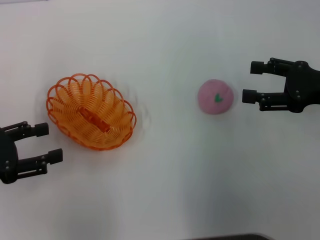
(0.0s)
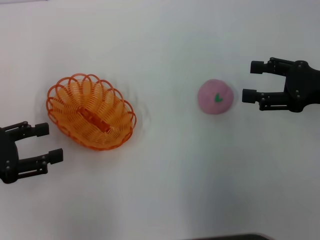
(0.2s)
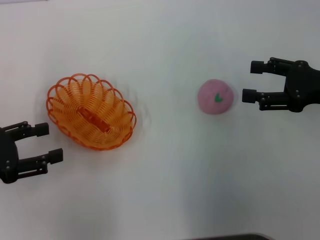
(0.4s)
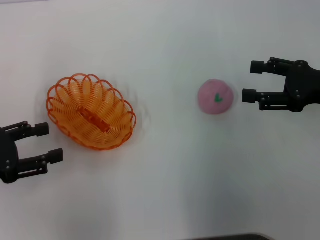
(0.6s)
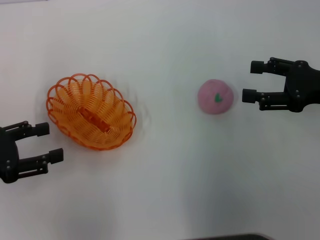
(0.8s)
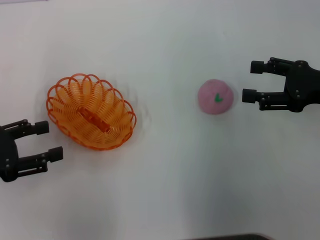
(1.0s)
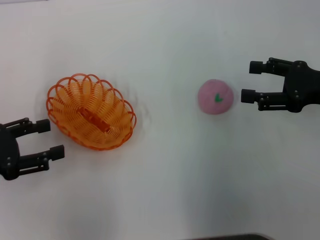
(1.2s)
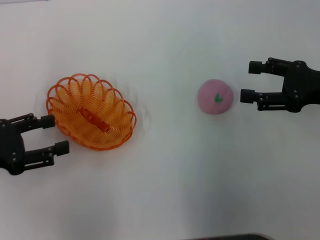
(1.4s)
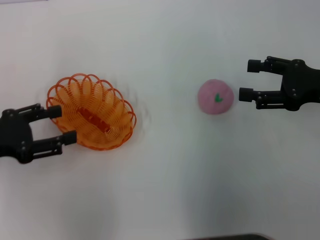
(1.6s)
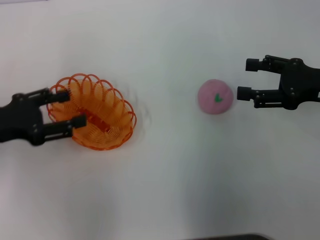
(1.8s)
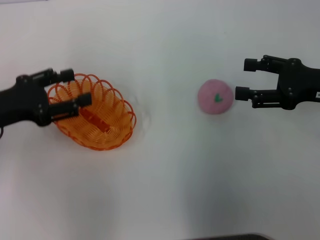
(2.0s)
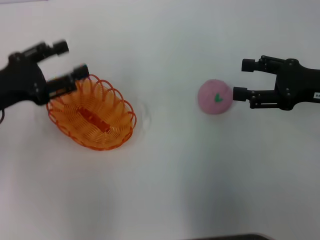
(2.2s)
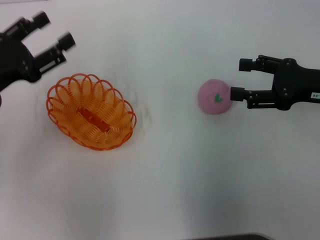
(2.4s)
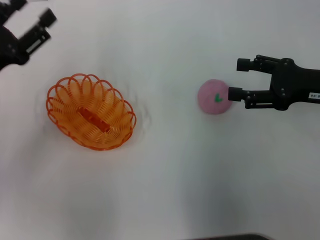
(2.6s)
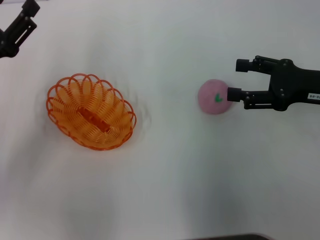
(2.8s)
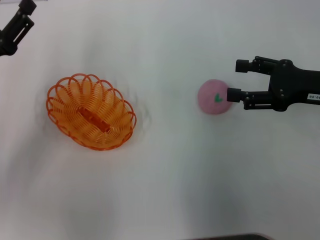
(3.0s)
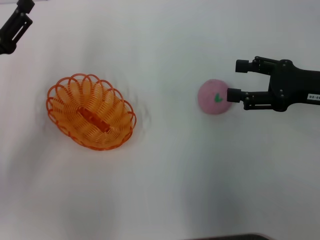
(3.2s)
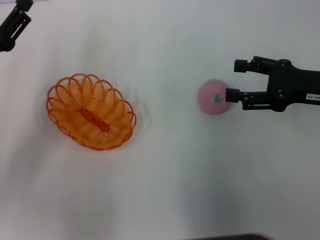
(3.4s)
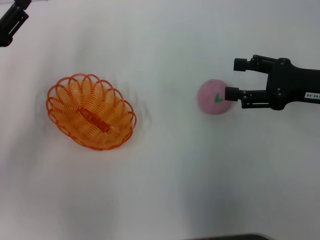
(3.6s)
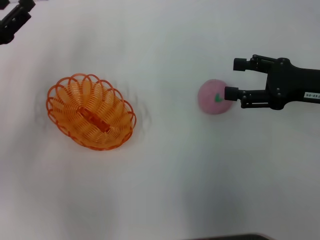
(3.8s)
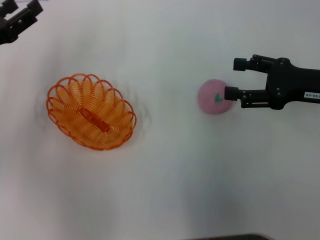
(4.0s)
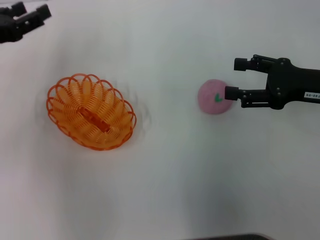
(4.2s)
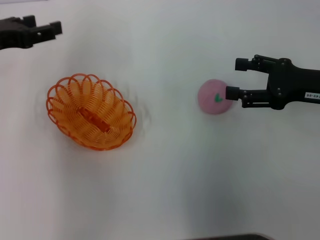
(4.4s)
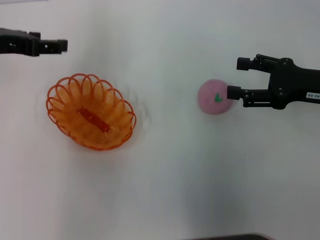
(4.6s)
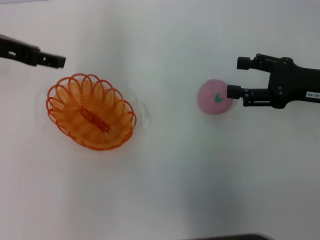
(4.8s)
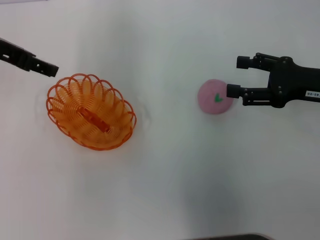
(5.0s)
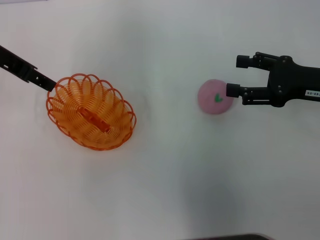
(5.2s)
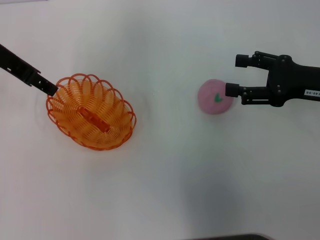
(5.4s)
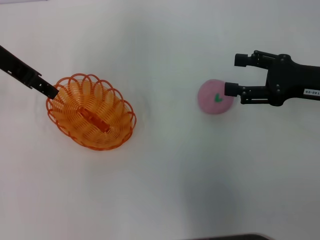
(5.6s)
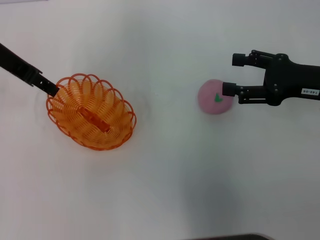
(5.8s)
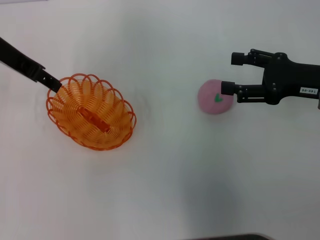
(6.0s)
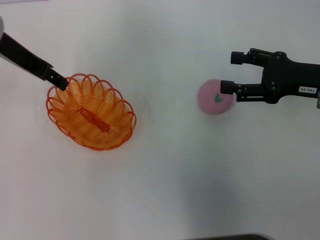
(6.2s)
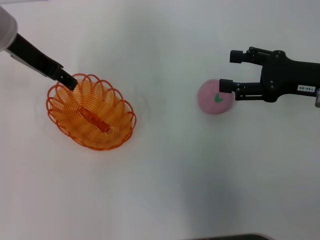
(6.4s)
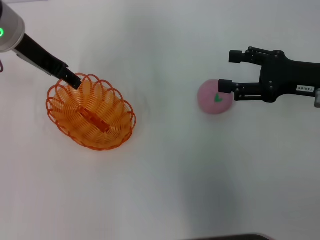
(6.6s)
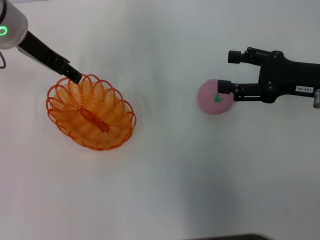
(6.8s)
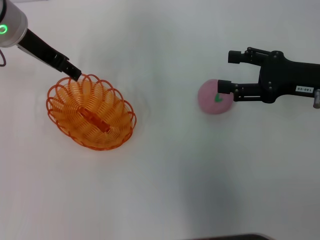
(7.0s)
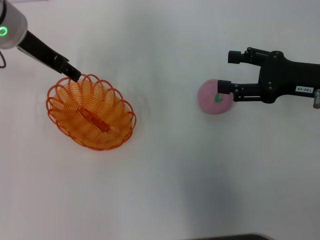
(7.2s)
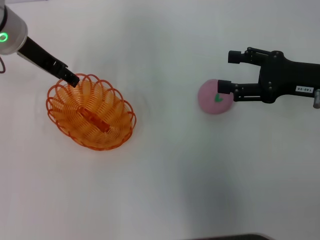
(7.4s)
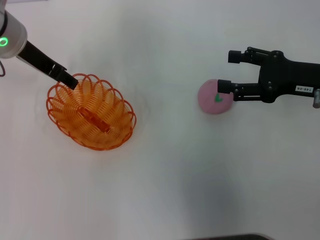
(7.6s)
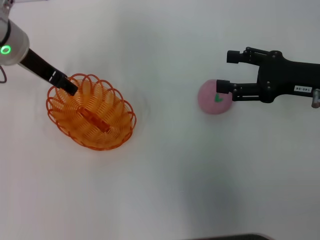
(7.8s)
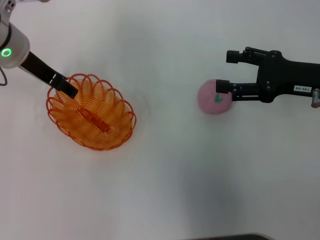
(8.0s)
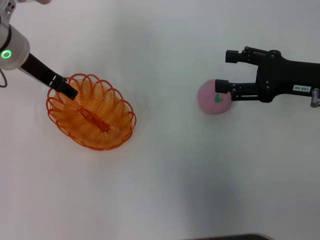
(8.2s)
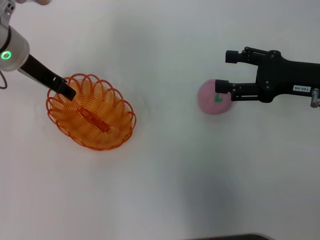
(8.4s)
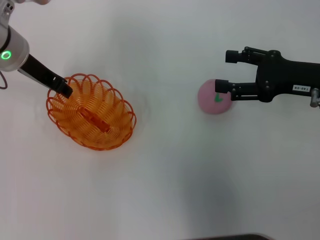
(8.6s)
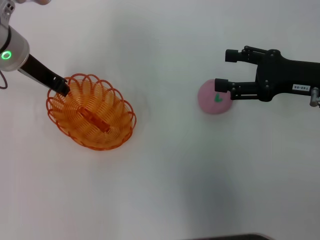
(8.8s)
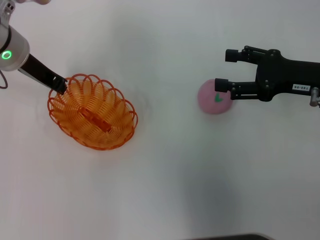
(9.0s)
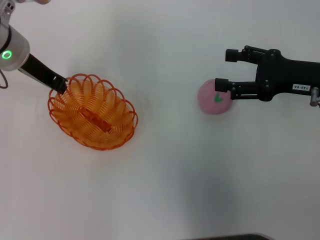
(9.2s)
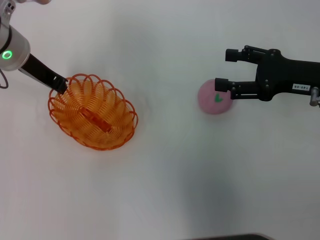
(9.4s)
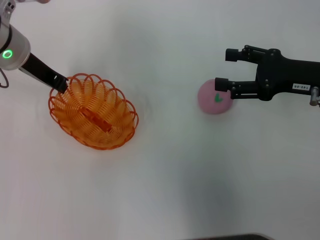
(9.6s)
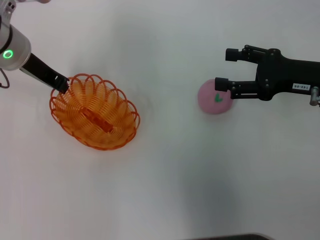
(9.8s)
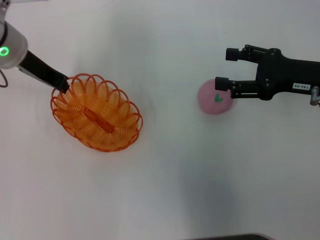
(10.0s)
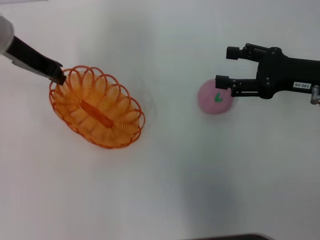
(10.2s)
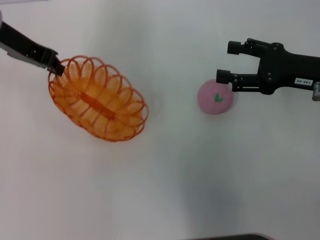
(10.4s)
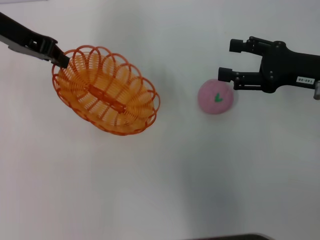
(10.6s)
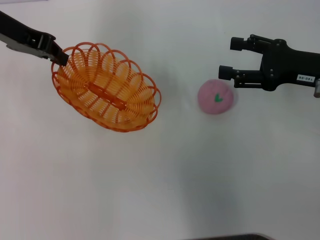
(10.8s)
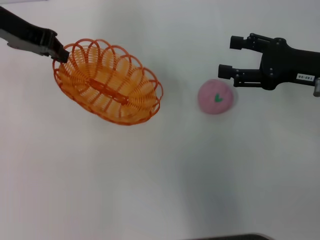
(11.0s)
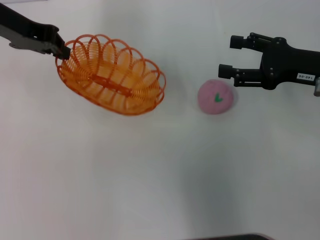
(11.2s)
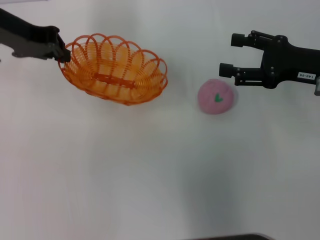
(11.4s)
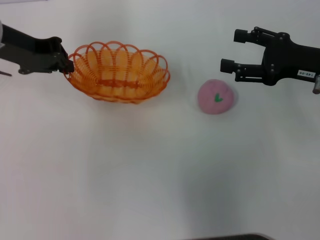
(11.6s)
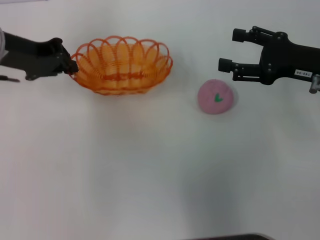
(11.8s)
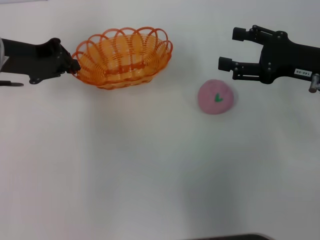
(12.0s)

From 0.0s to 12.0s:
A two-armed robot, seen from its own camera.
Step, from 0.0s to 10.2s: Pick up the basket with the left gripper.
From 0.0s to 1.6s: The grippers stay close to where they were, moving slightly.
From 1.6s to 3.0s: The left gripper changes place by some 5 cm.
From 3.0s to 4.4s: The left gripper travels upward and forward by approximately 10 cm.
From 4.4s to 6.0s: The left gripper heads to the right and upward, covering about 10 cm.
From 6.0s to 7.6s: The left gripper ends up some 5 cm from where it was.
From 7.6s to 9.0s: The left gripper closes.
From 9.0s to 10.4s: The left gripper travels upward by some 5 cm.
From 10.4s to 12.0s: The left gripper heads downward, covering roughly 5 cm.

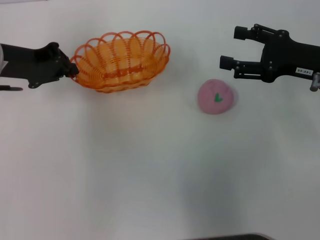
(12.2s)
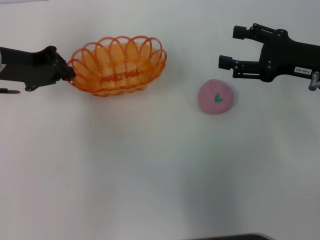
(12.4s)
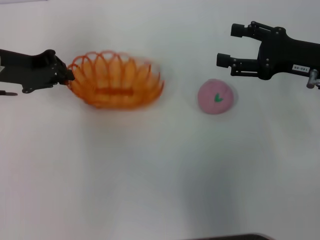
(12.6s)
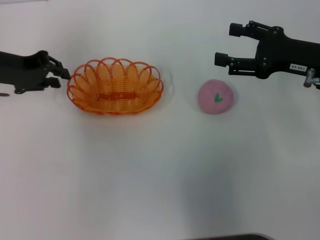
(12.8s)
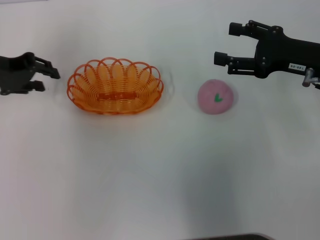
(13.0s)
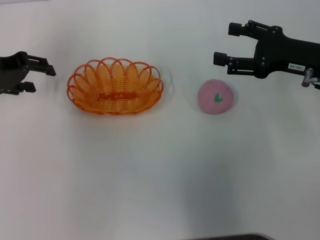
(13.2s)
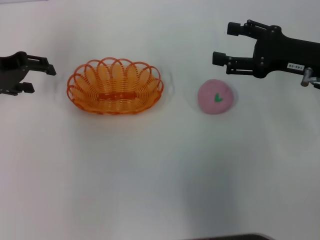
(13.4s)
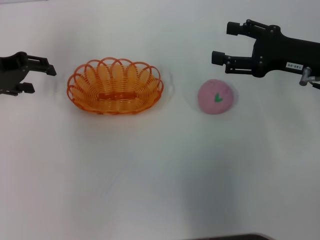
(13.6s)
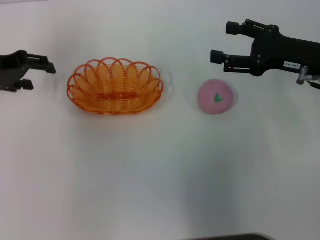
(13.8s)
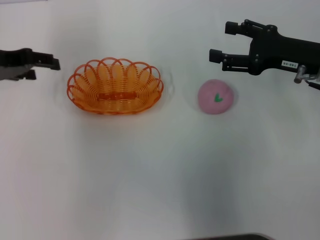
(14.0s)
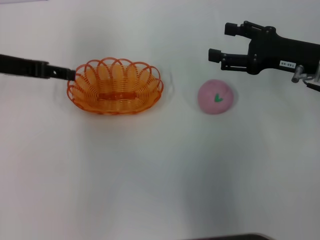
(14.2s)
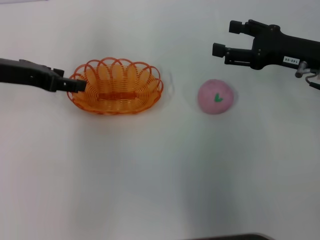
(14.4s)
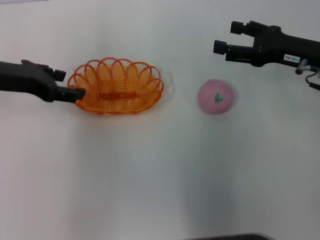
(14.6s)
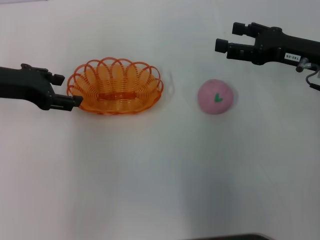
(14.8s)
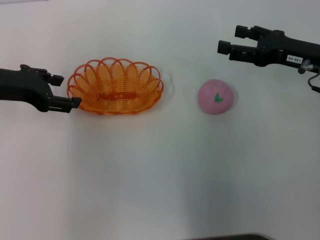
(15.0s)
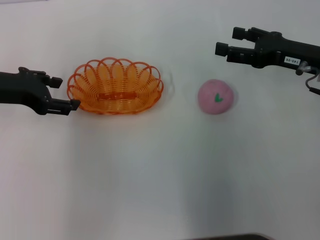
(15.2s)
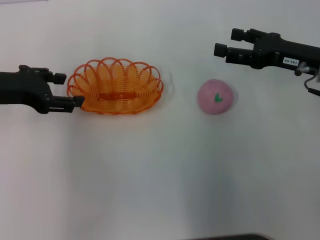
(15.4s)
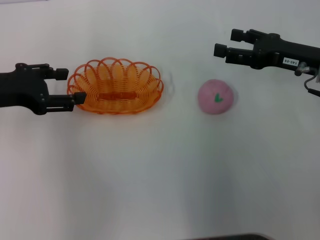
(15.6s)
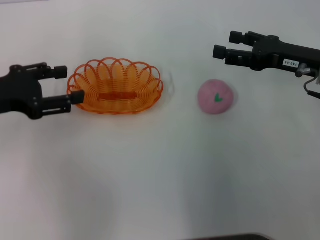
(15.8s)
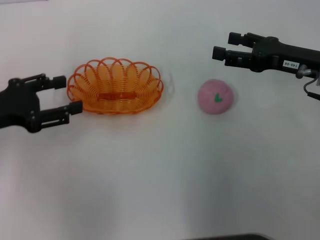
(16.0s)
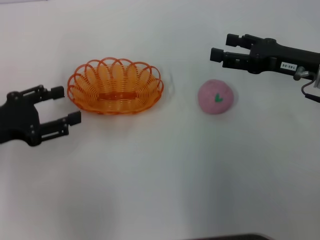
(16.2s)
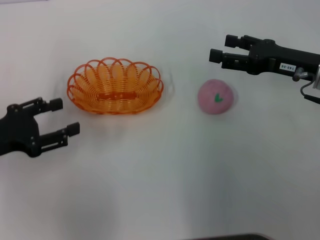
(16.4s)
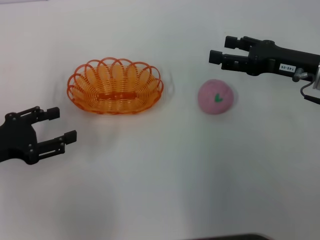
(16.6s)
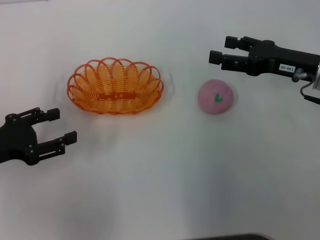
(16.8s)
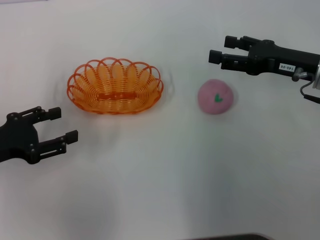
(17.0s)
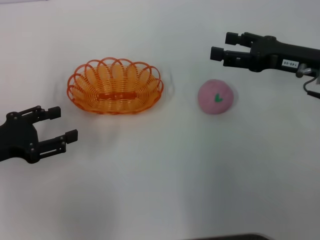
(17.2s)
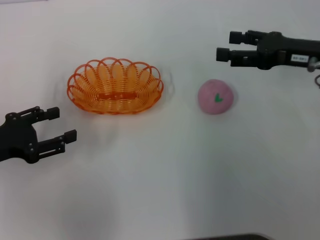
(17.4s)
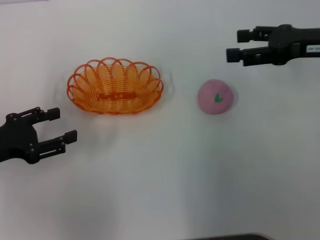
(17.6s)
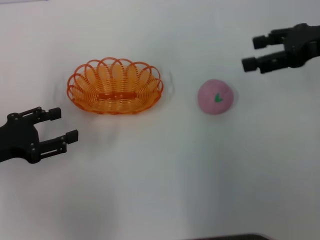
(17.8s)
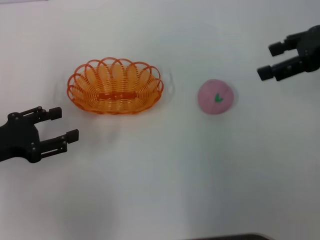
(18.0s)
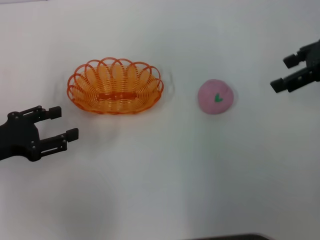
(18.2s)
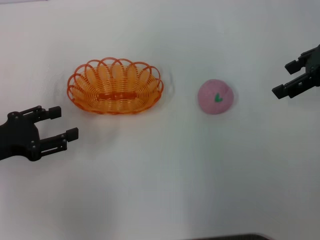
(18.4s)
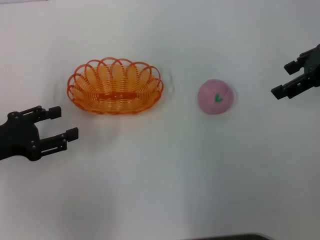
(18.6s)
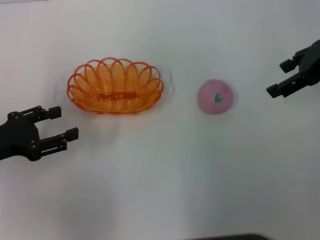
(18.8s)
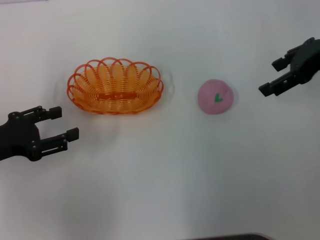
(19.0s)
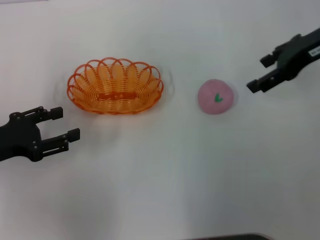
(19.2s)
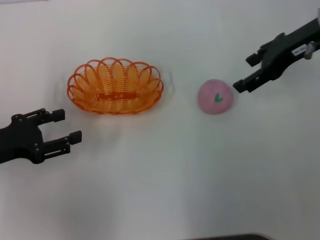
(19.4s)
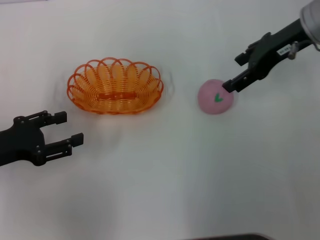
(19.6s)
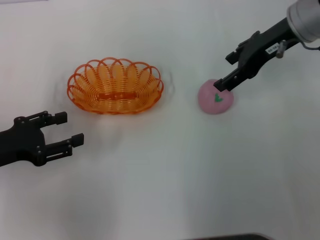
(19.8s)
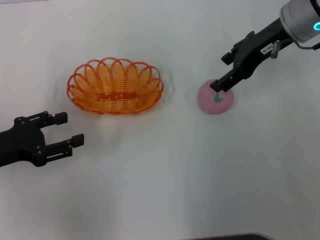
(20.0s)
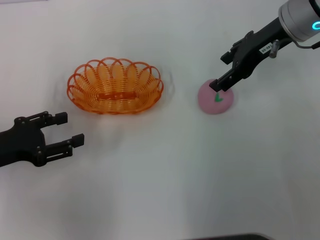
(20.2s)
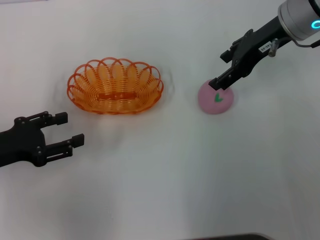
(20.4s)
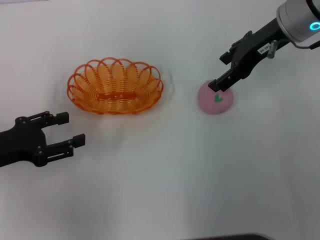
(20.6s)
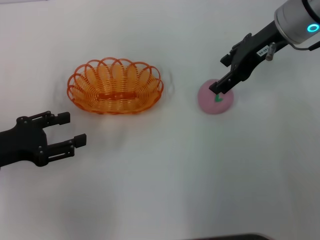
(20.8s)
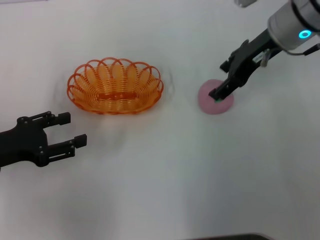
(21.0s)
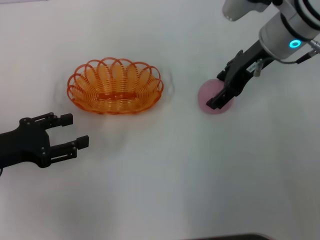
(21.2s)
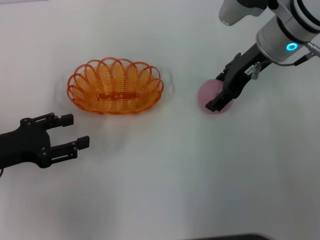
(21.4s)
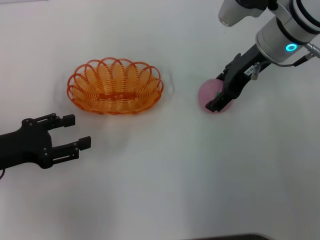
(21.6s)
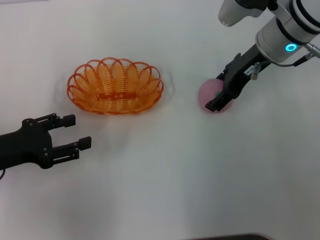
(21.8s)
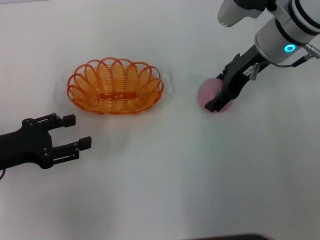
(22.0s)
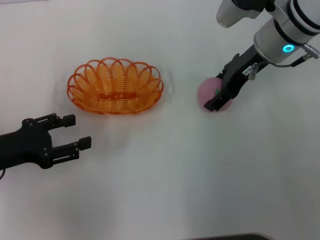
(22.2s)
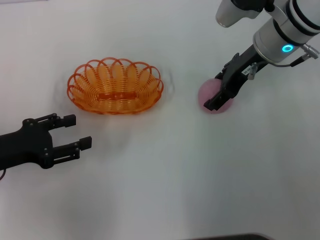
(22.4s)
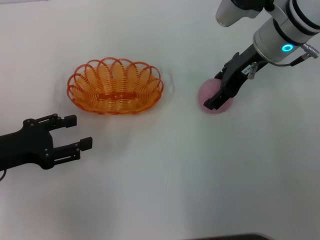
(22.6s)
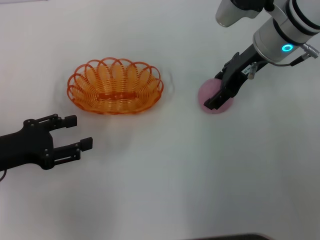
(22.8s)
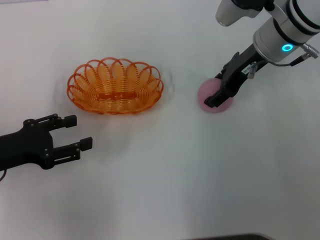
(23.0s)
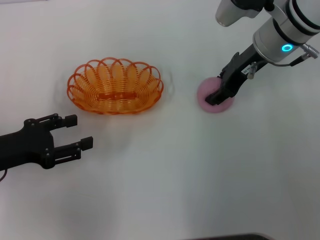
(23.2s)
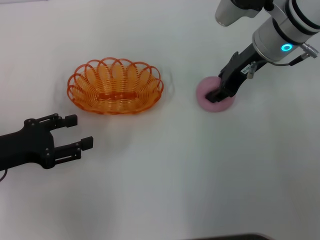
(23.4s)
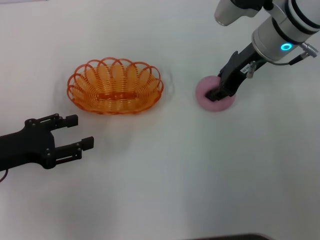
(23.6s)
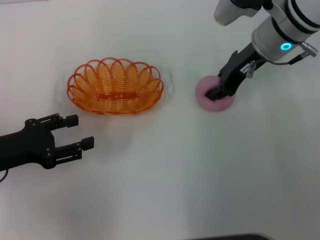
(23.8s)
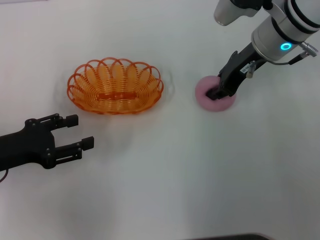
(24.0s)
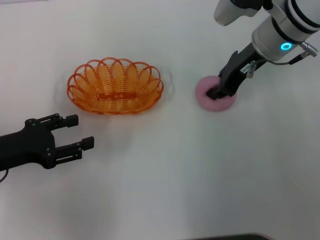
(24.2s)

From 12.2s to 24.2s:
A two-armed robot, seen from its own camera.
Step, from 12.2s to 15.6s: Place the basket in the center of view with the left gripper.
From 12.2s to 13.8s: The left gripper opens up.
From 15.2s to 16.6s: The left gripper is displaced backward and downward by some 10 cm.
From 16.6s to 18.2s: The right gripper goes some 10 cm upward.
From 18.2s to 19.8s: The right gripper is displaced to the left by some 10 cm.
From 19.8s to 21.2s: There are only small adjustments of the grippers.
From 21.2s to 22.6s: Both grippers stay put.
From 22.6s to 24.2s: The right gripper closes.
